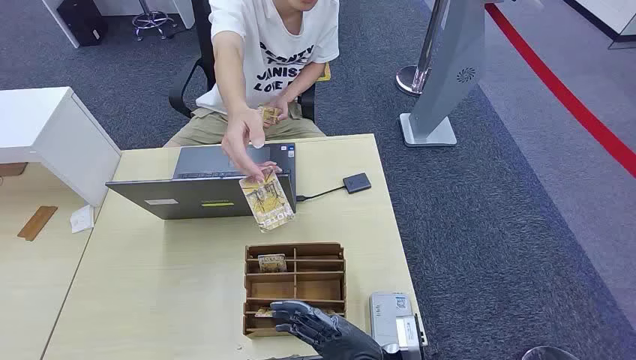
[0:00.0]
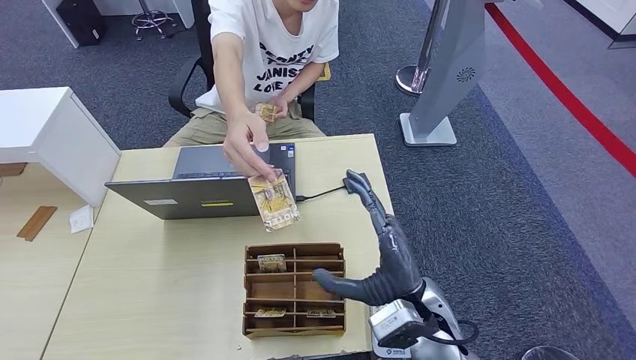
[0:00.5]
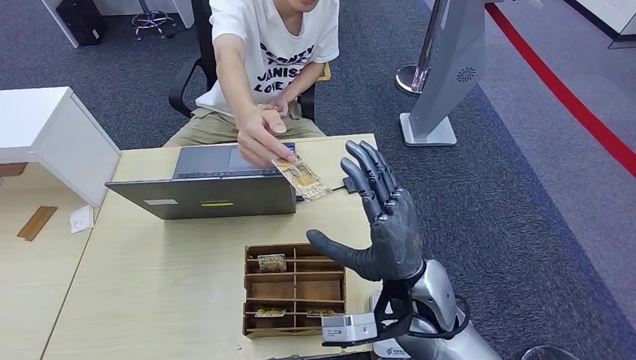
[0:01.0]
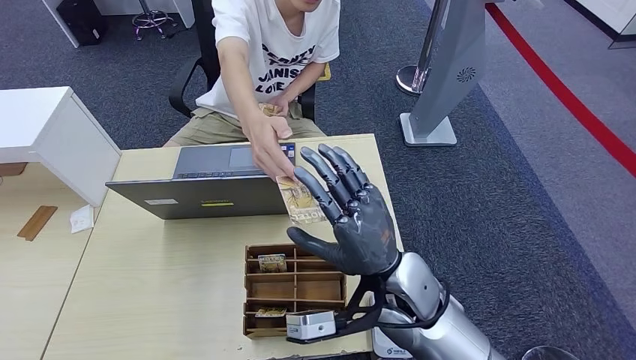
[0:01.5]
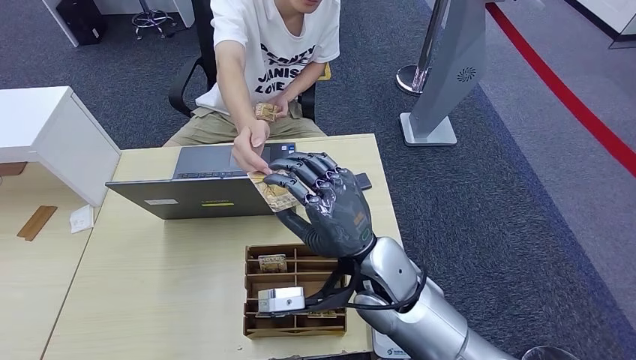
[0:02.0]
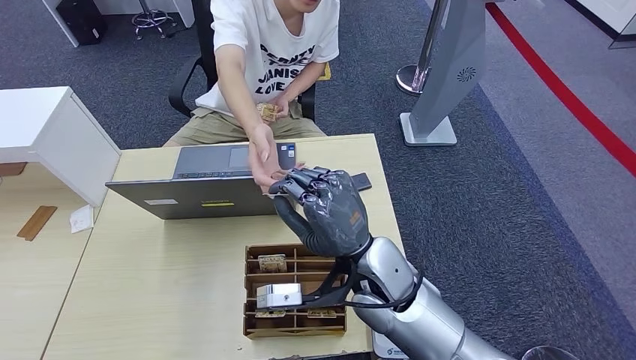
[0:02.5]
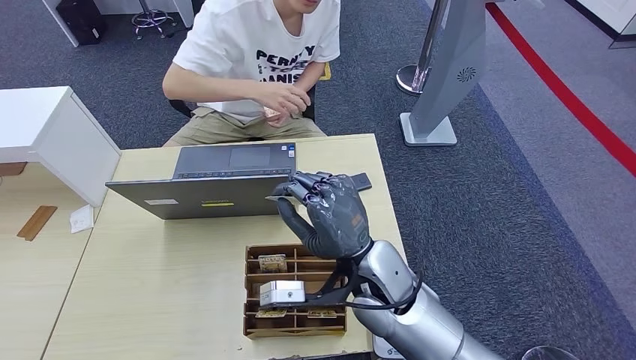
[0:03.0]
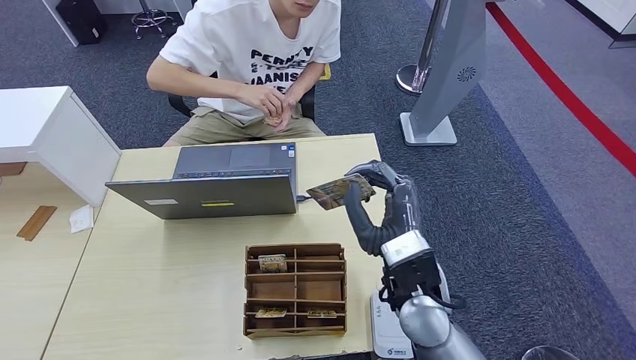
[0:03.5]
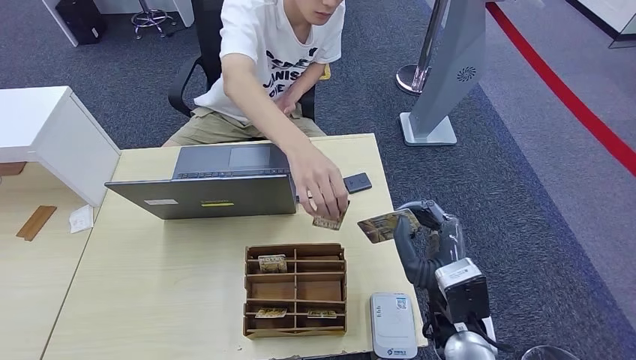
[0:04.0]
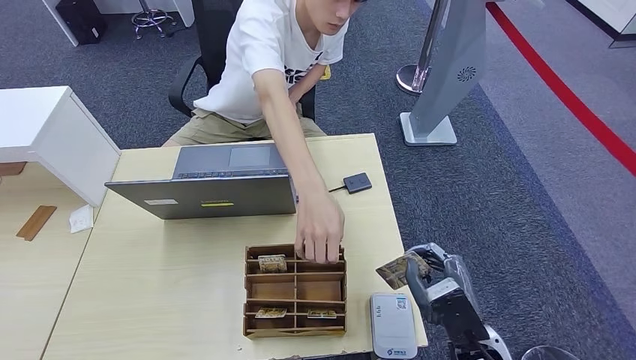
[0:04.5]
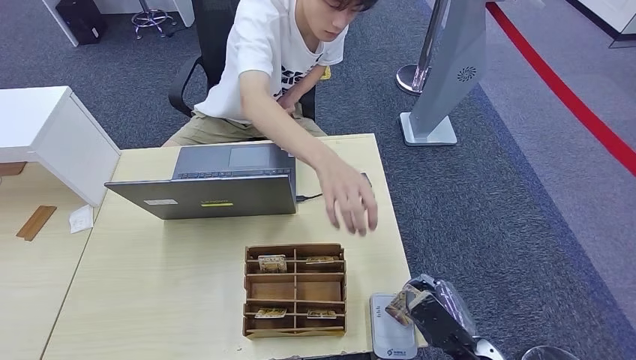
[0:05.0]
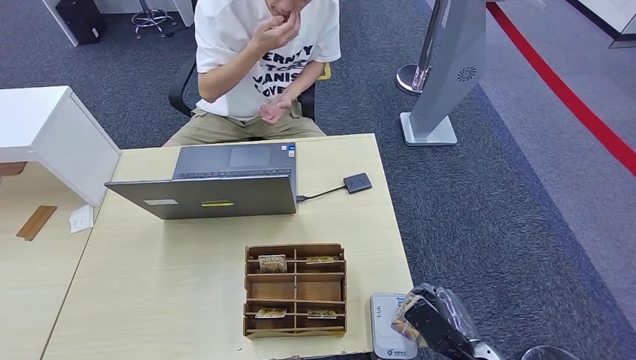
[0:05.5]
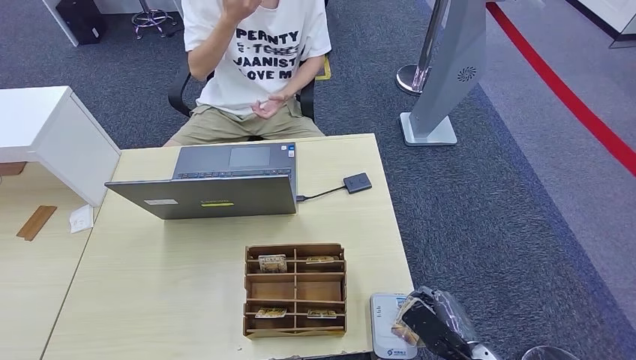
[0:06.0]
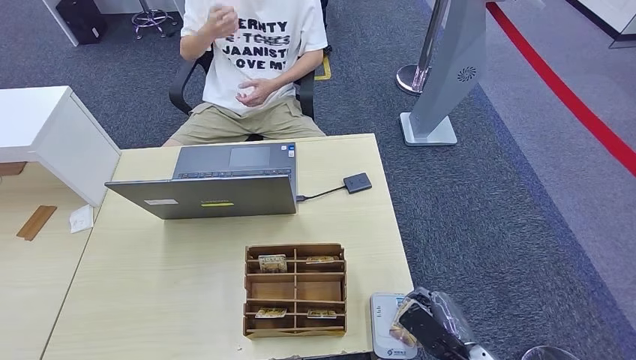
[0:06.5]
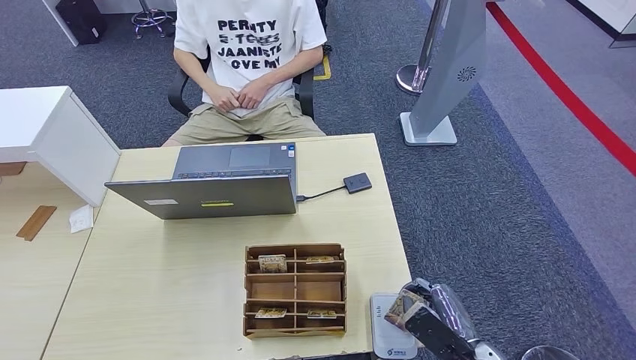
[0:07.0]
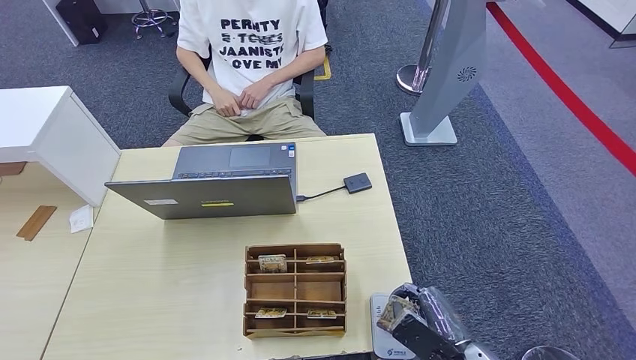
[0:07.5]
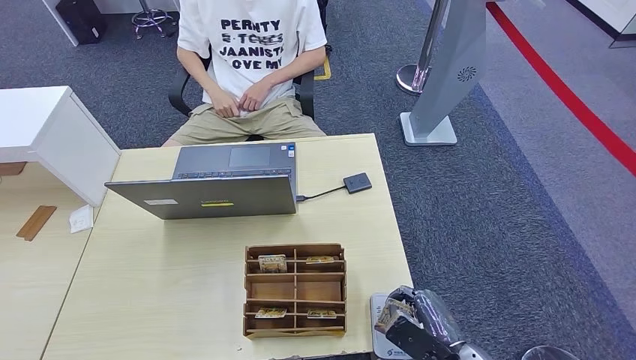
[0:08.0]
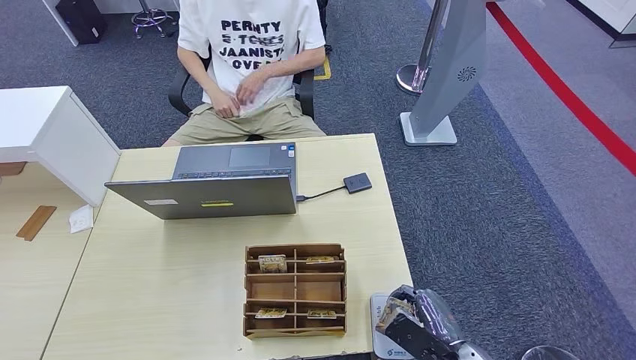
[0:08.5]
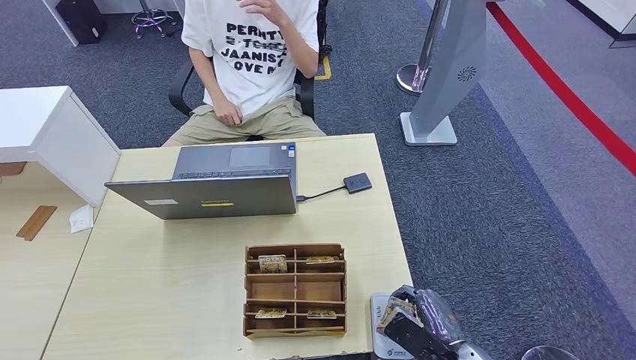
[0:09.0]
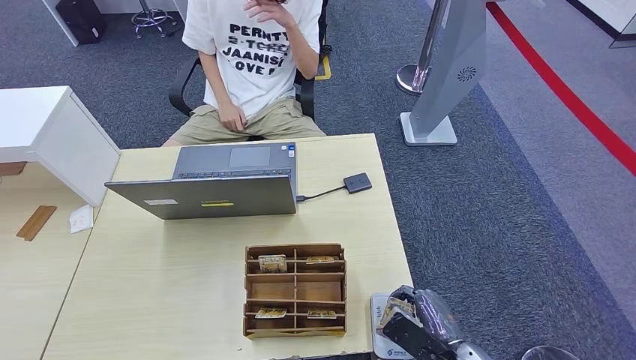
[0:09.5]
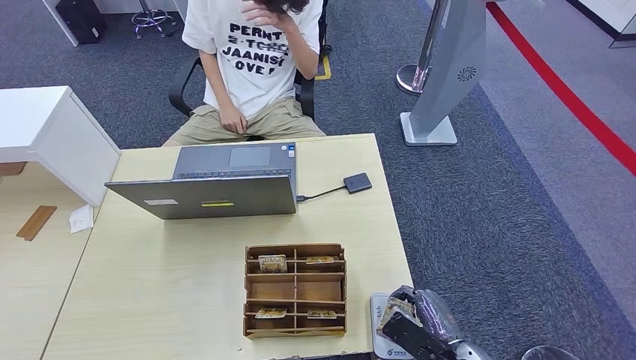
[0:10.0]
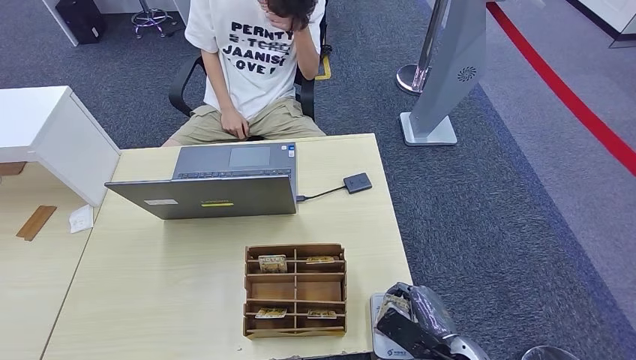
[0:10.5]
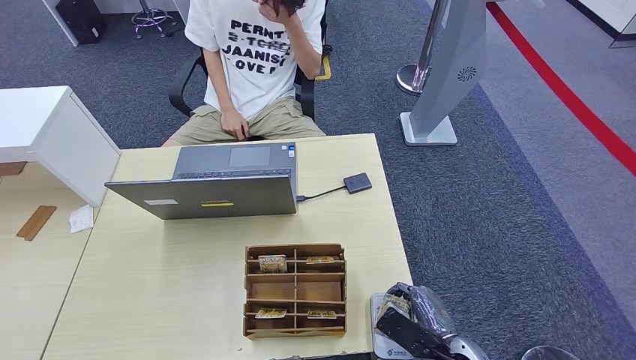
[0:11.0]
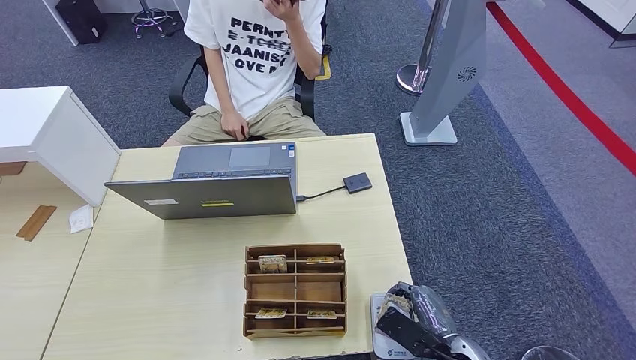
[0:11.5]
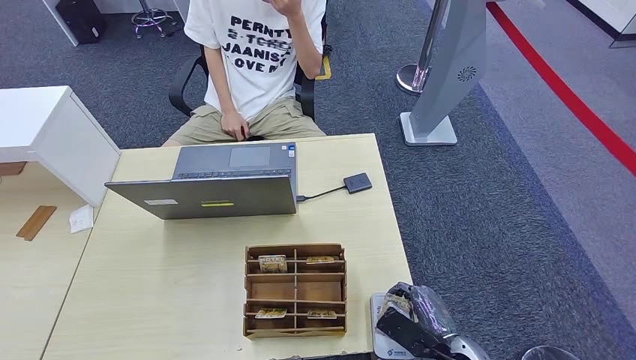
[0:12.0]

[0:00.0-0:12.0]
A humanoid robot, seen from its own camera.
Step, 0:00.0 to 0:02.5: Take the ID card from the person's hand.
Step, 0:03.0 to 0:06.0: Place the ID card on the card reader.
0:02.0 to 0:04.0: The right hand travels to the right, backward and downward by about 15 cm.
0:04.0 to 0:06.0: The right hand moves downward, to the right and backward, approximately 15 cm.
0:06.0 to 0:08.0: The hands make only small movements.
0:08.0 to 0:10.0: Both hands stay put.
0:10.0 to 0:12.0: Both hands stay about where they are.

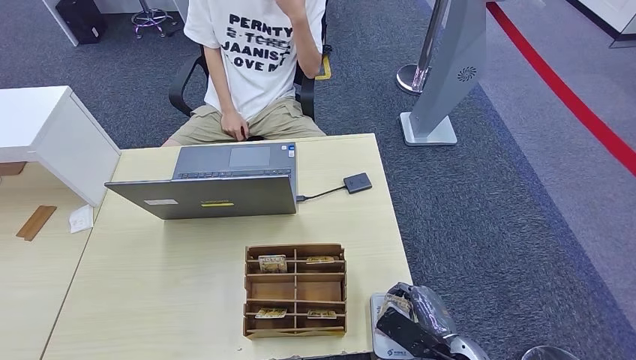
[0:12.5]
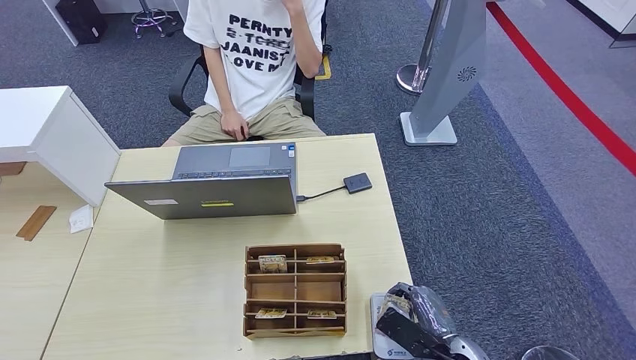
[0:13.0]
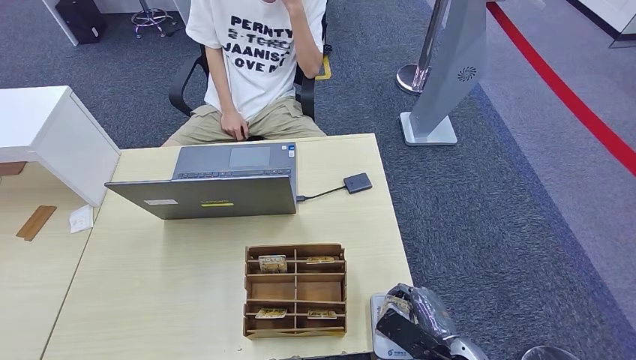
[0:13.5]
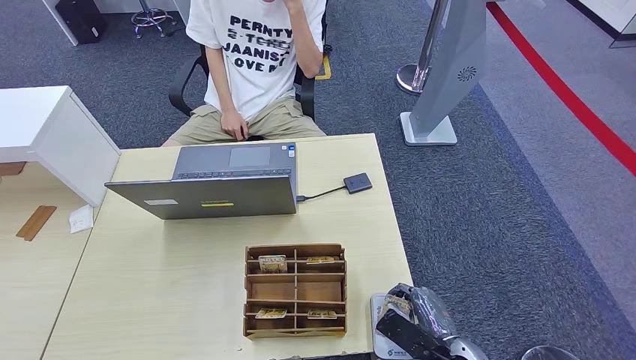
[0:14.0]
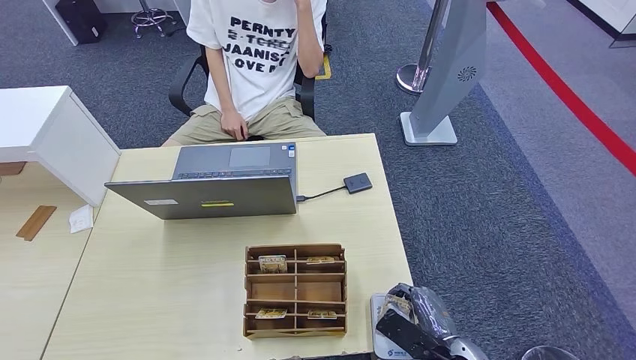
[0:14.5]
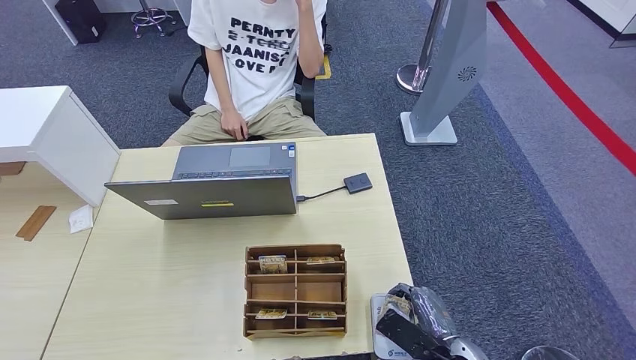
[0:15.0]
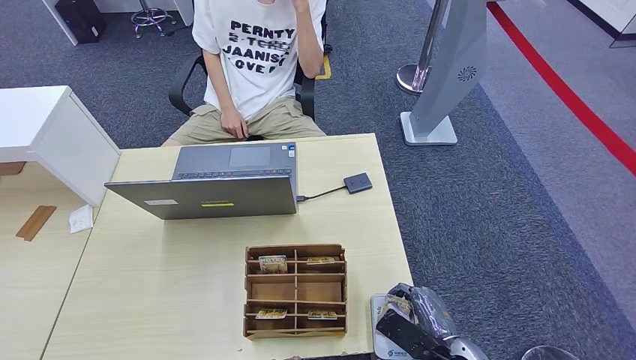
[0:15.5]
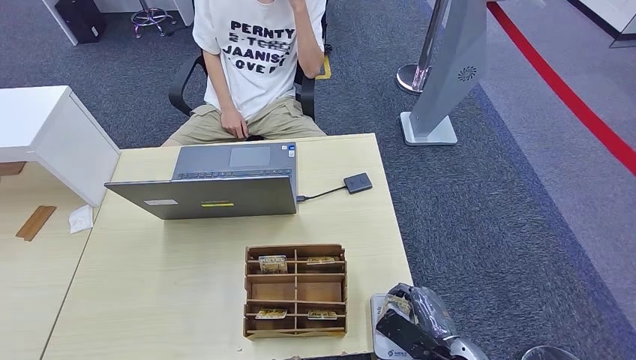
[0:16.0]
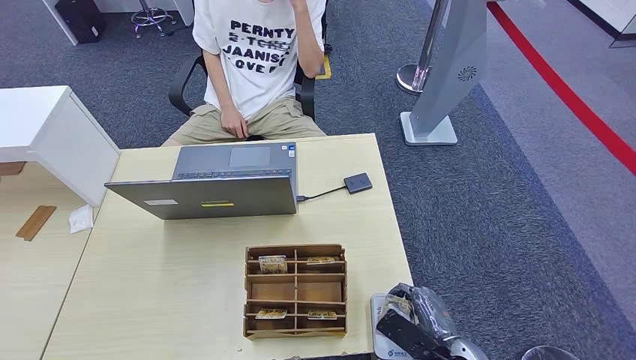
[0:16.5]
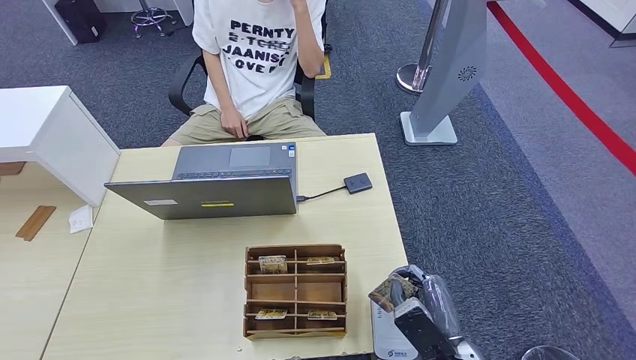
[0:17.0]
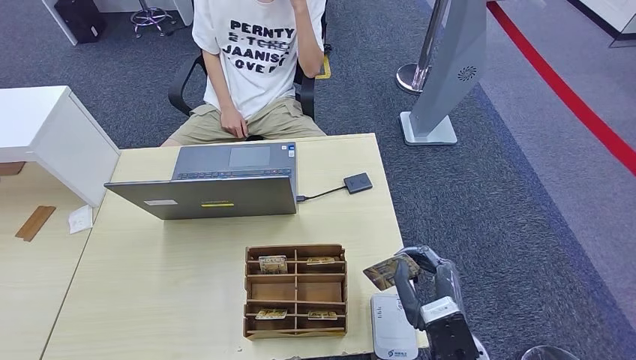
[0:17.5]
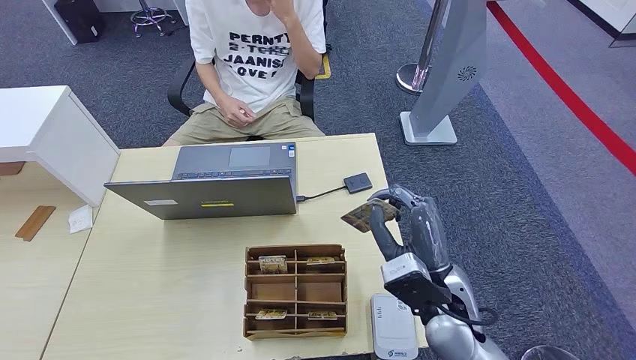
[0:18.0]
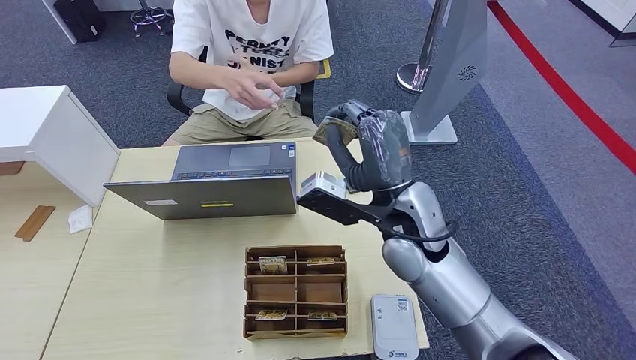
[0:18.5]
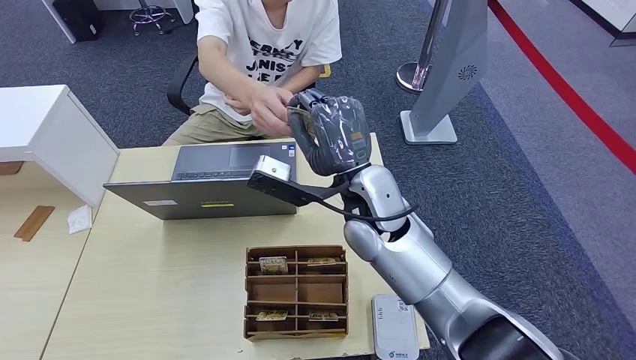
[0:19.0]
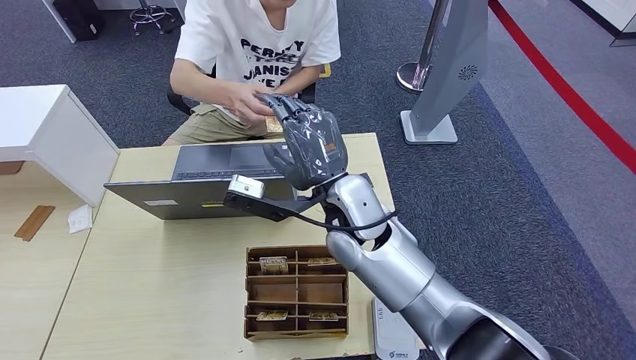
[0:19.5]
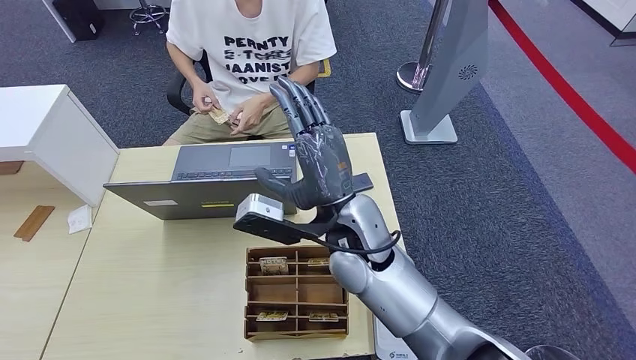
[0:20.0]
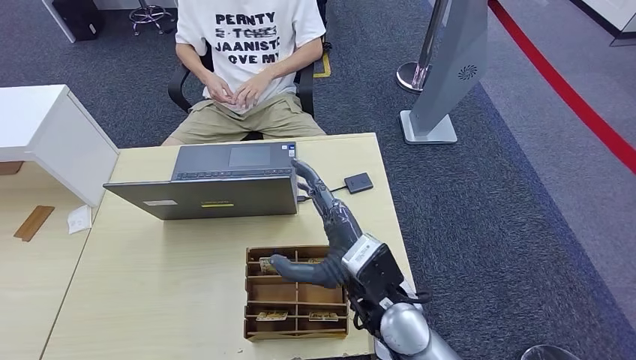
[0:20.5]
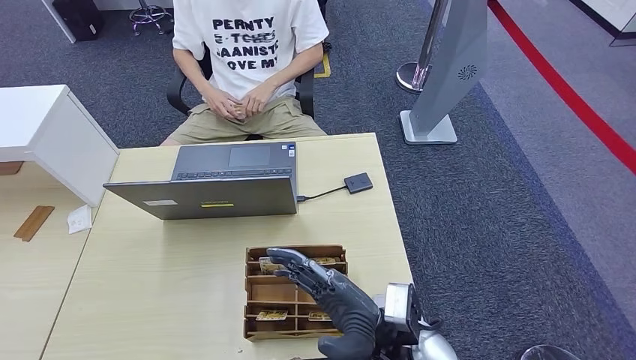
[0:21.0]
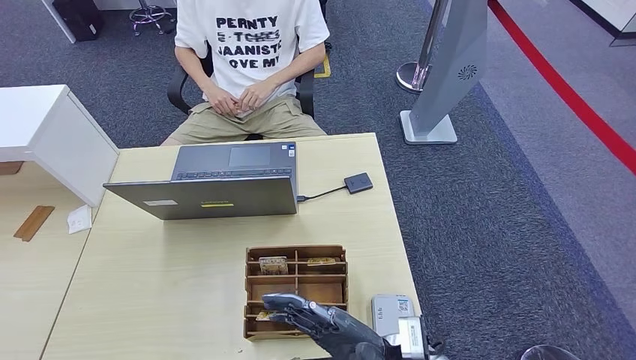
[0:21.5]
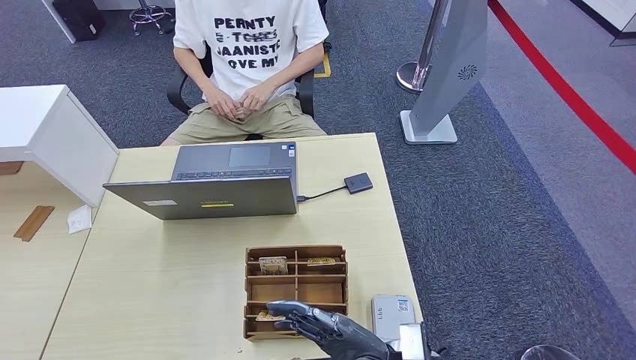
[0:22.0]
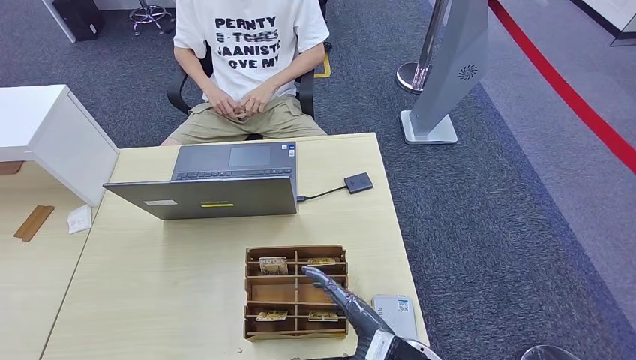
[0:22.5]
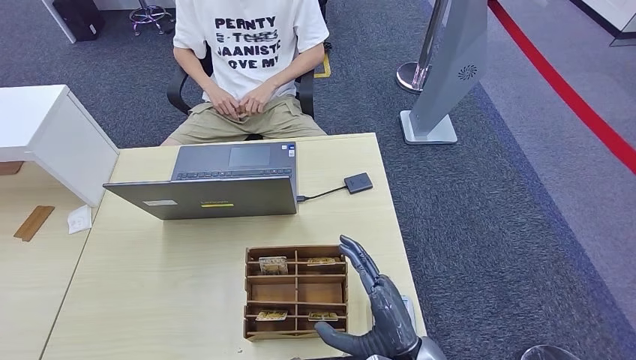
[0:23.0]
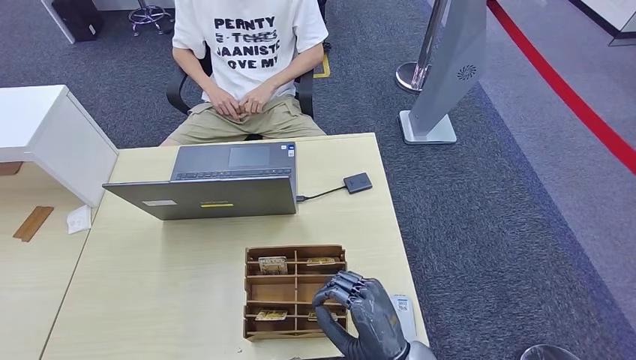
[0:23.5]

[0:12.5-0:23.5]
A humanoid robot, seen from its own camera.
Step, 0:12.5 to 0:19.5: Hand the ID card to the person.
0:12.5 to 0:16.0: Both hands stay put.
0:16.0 to 0:18.0: The right hand moves upward and forward, approximately 15 cm.
0:18.0 to 0:20.0: The right hand travels to the left, upward and forward by approximately 15 cm.
0:20.0 to 0:21.5: The right hand shifts some 20 cm backward, downward and to the right.
